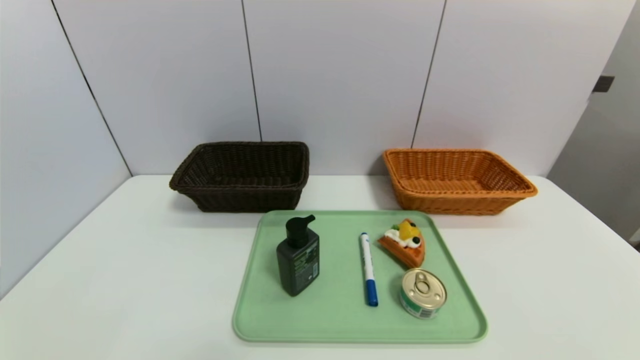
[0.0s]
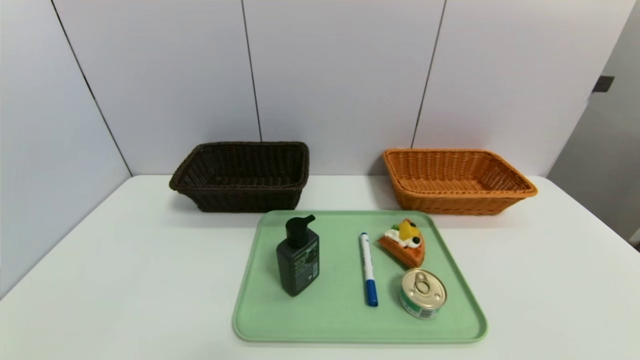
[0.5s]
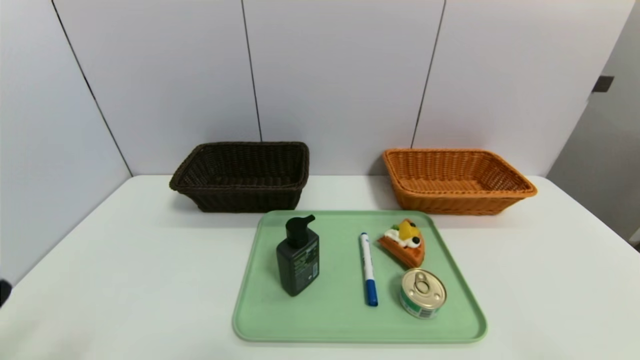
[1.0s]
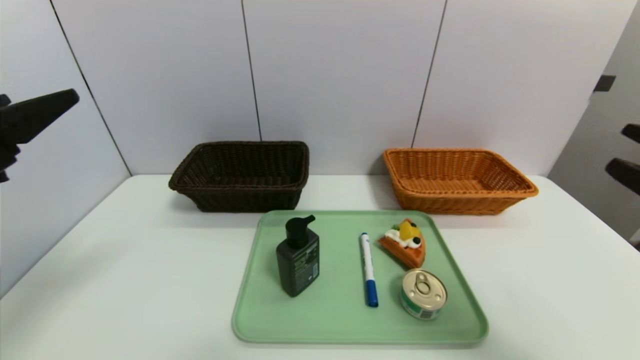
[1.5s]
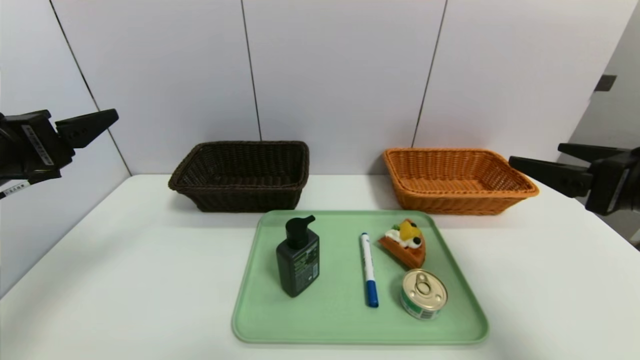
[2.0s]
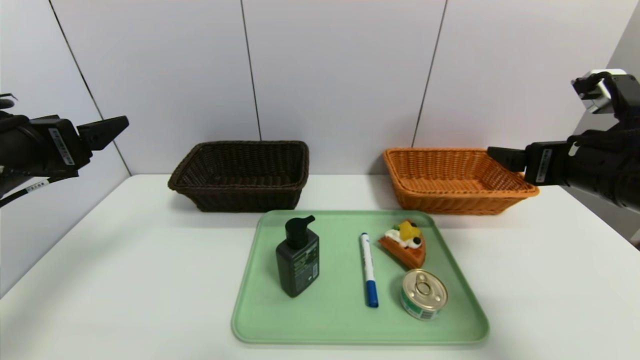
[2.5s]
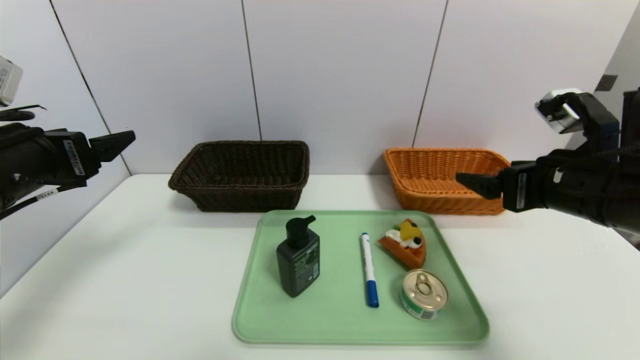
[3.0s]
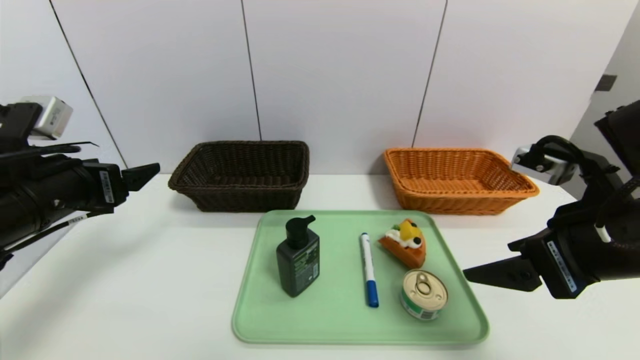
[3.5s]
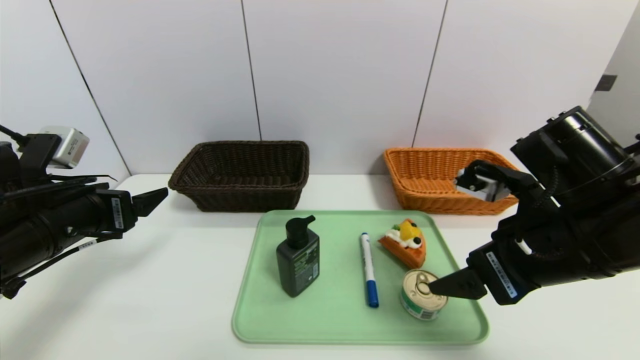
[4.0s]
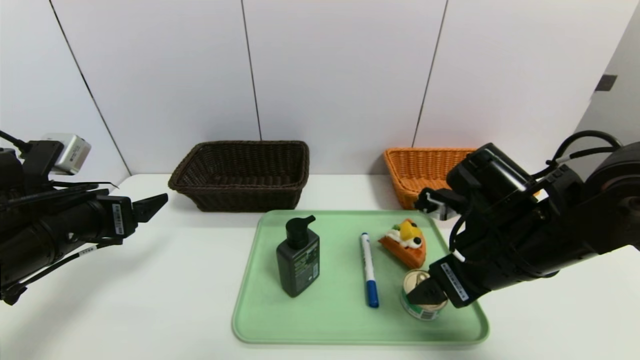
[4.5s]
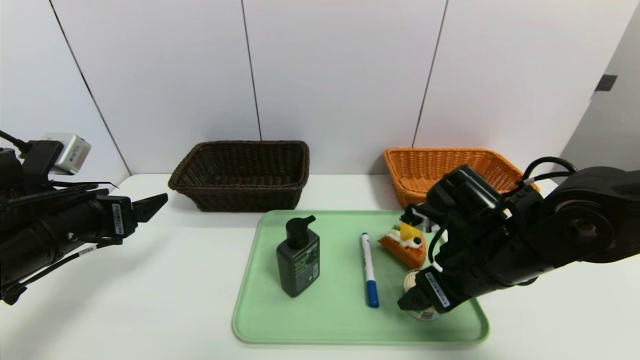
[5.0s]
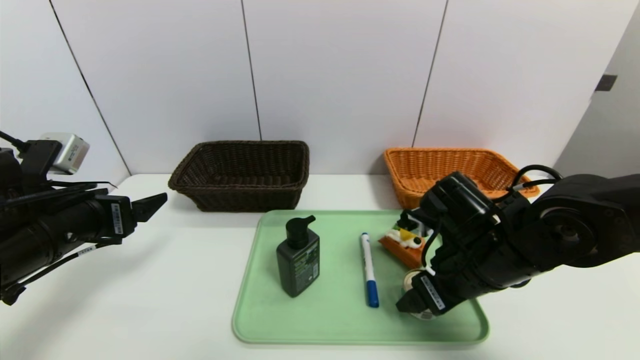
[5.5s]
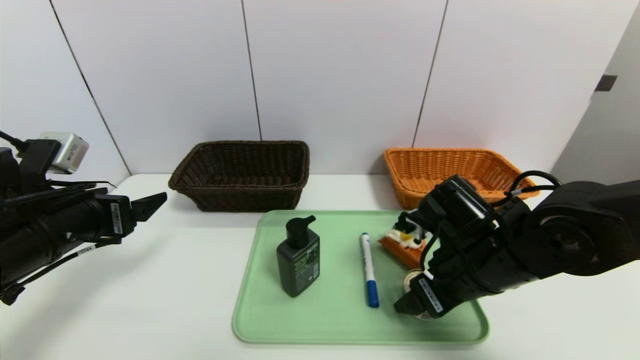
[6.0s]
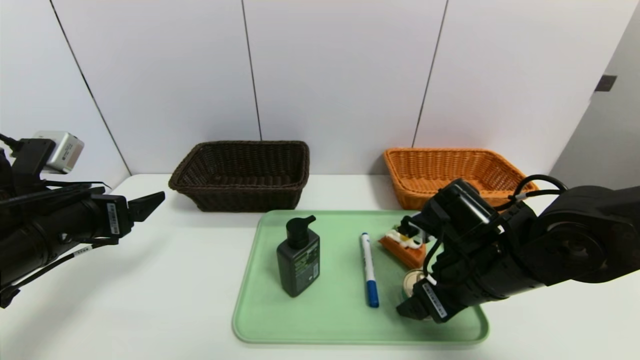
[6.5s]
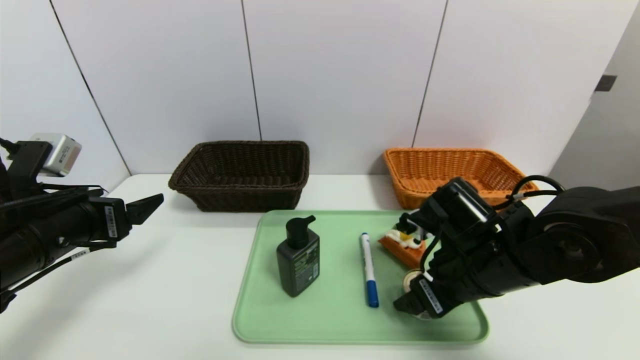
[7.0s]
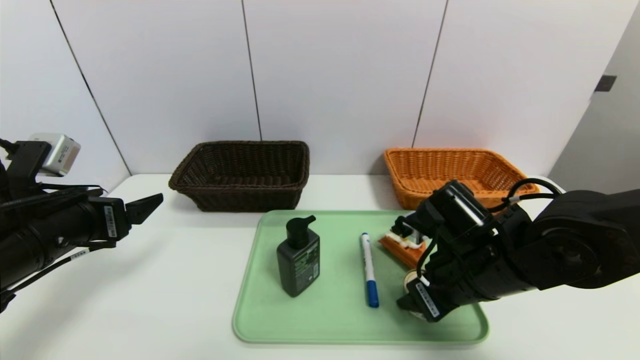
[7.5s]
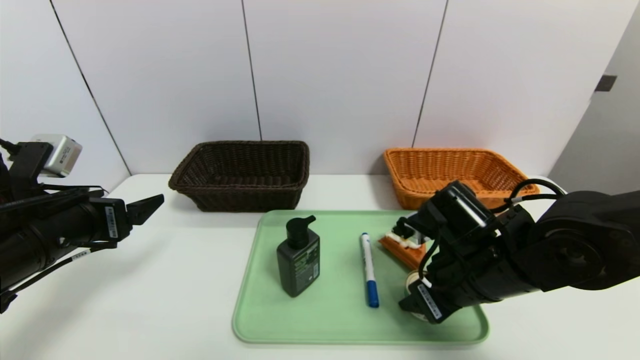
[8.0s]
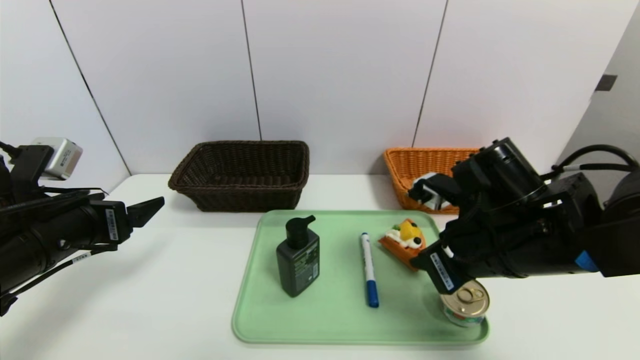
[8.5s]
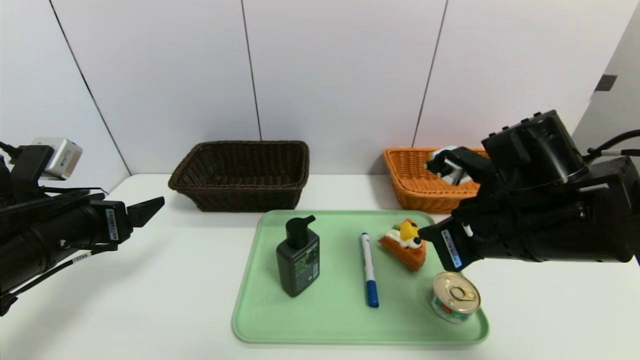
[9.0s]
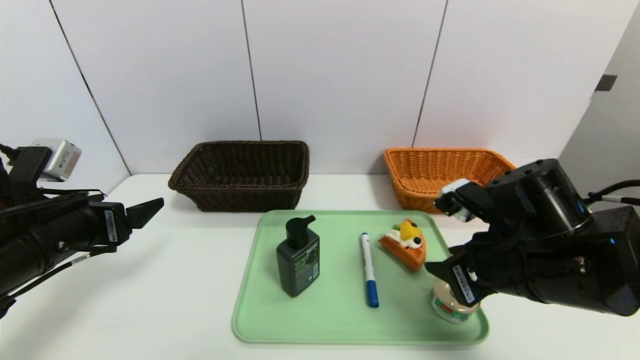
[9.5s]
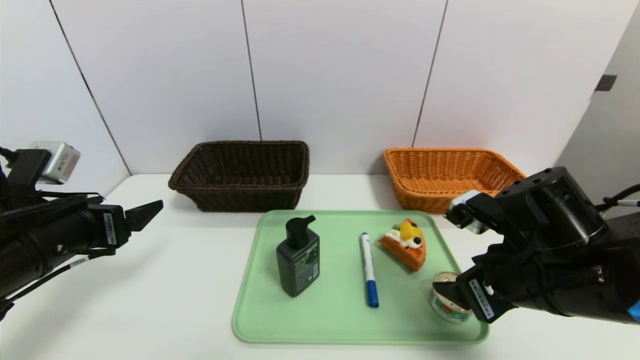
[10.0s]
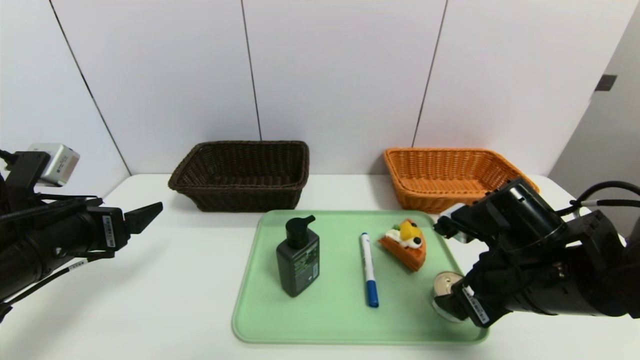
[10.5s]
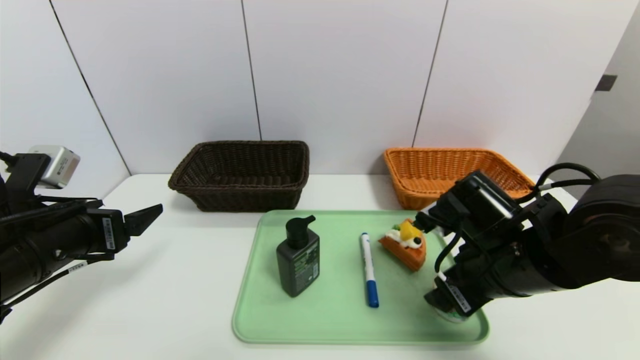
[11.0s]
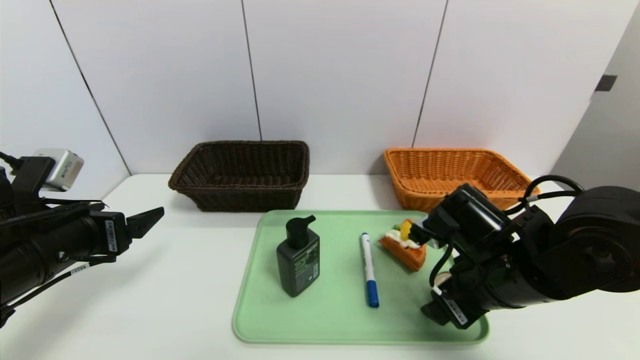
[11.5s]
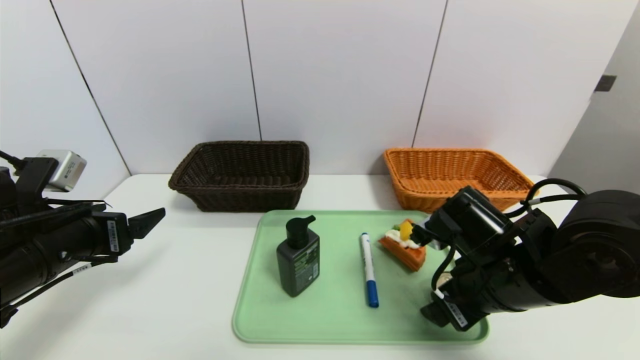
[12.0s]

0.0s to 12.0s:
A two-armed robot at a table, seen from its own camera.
Task of the whole recording: place the food in the right basket with the right gripper, and place the non food items in the left basket with the left gripper.
0.0s to 2.0s: The right gripper is displaced forward and upward by roughly 25 cm, while the left gripper goes about 30 cm upward and forward.
2.0s to 4.0s: The left gripper moves downward, roughly 10 cm; the right gripper travels to the left by roughly 10 cm.
4.0s to 6.0s: The right gripper moves downward, some 10 cm.
6.0s to 8.0s: The right gripper closes.
8.0s to 10.0s: The right gripper ends up roughly 5 cm from where it was, and closes, then reopens.
10.0s to 12.0s: The right gripper moves approximately 5 cm.

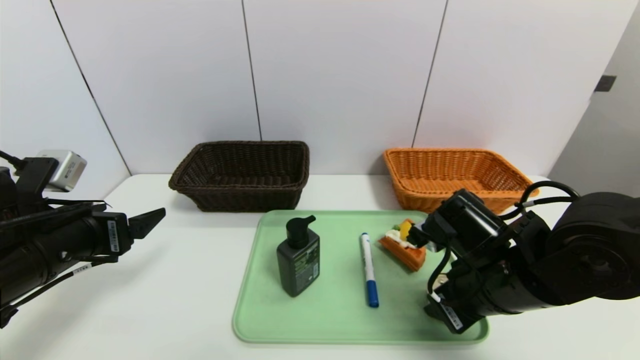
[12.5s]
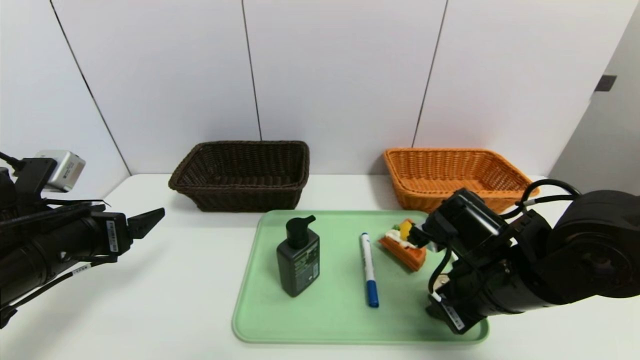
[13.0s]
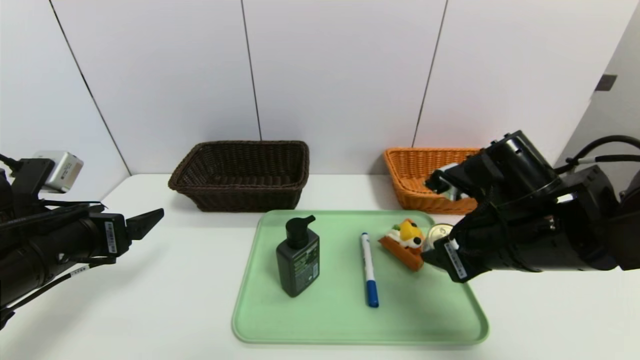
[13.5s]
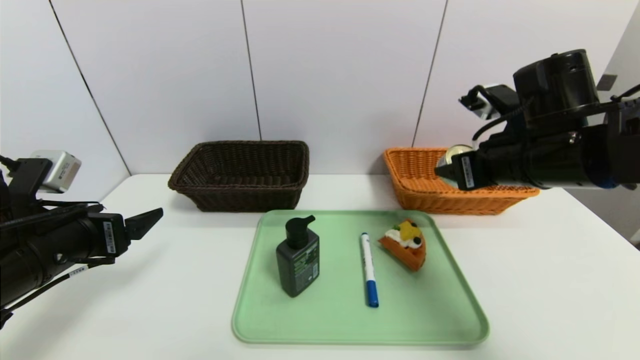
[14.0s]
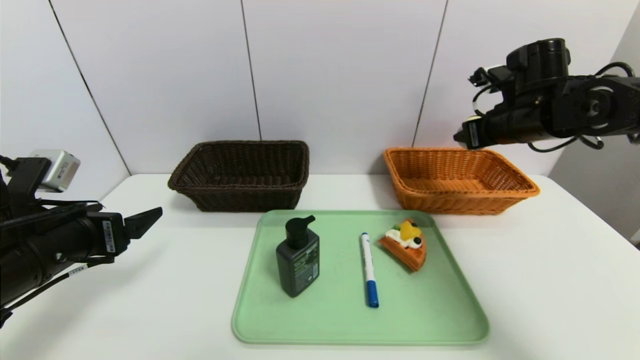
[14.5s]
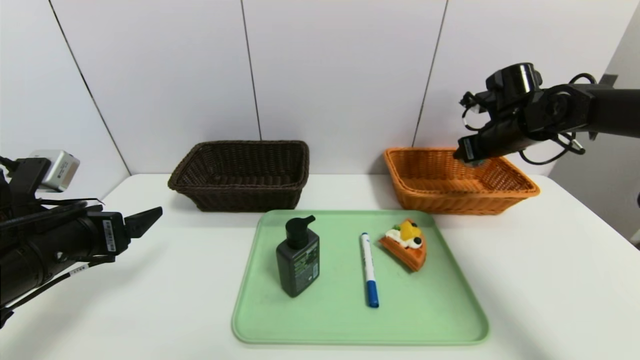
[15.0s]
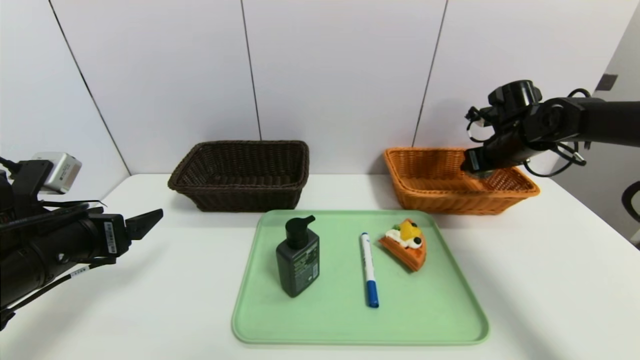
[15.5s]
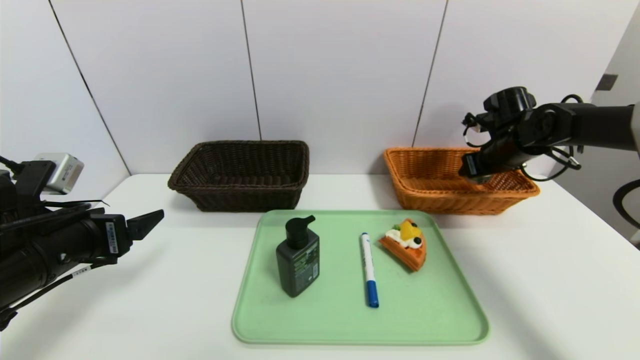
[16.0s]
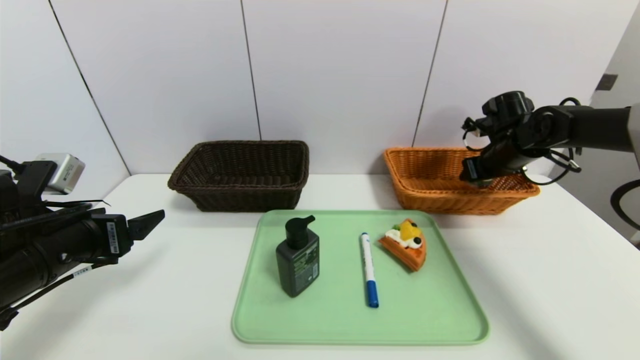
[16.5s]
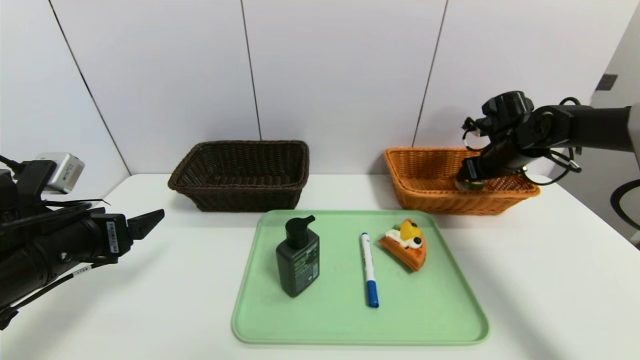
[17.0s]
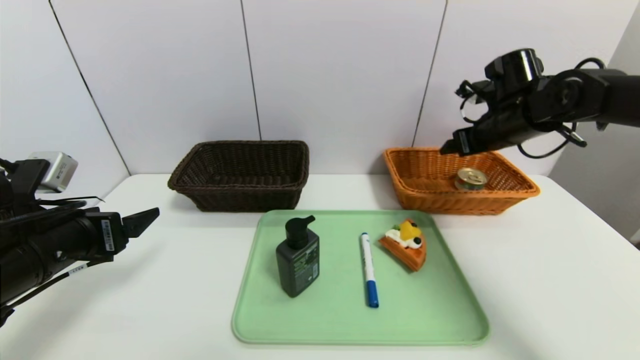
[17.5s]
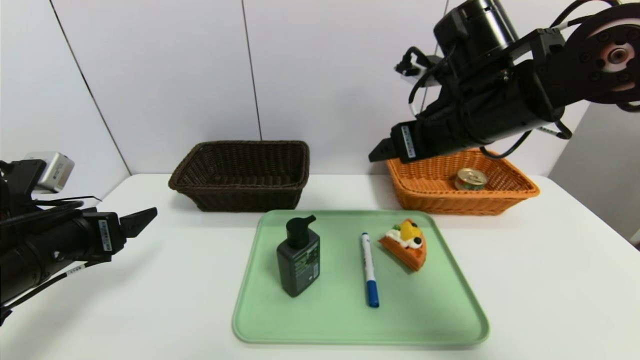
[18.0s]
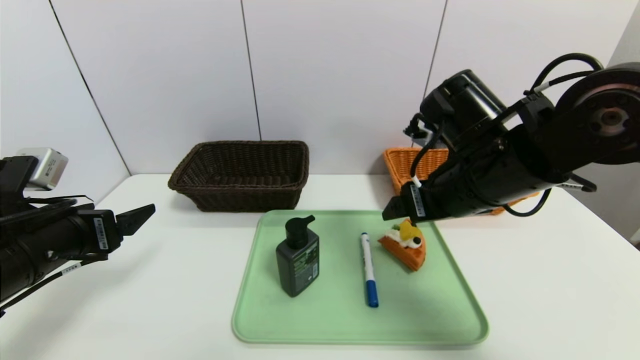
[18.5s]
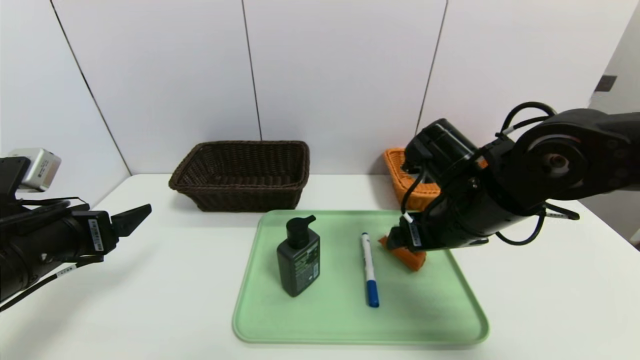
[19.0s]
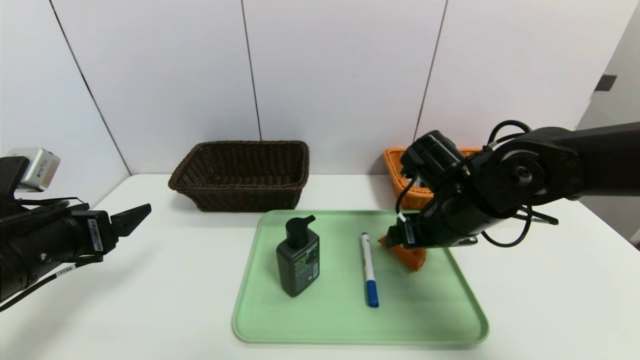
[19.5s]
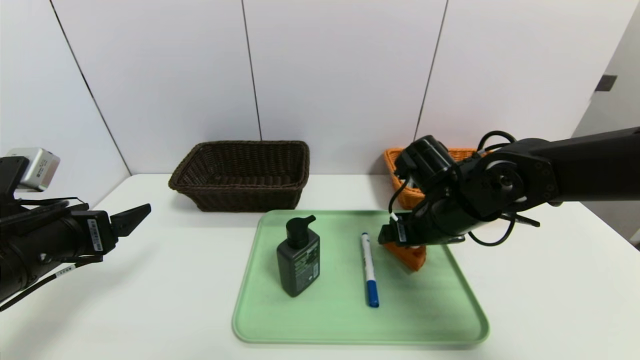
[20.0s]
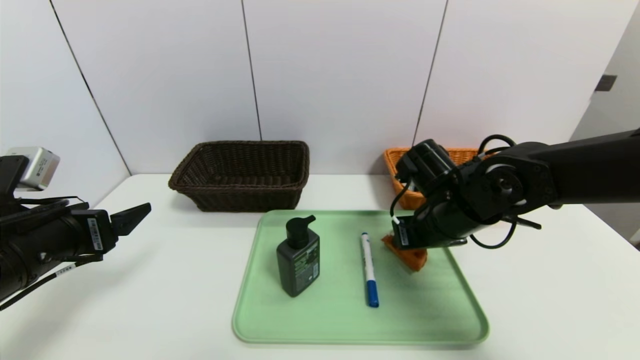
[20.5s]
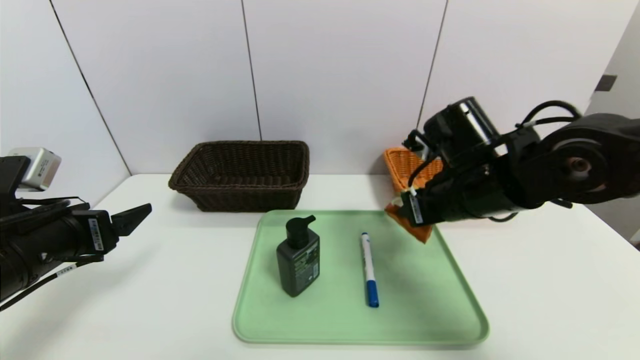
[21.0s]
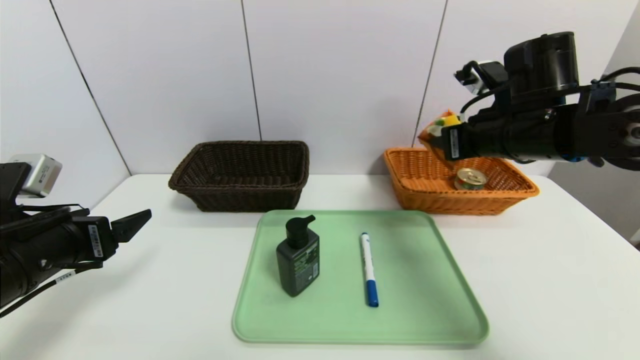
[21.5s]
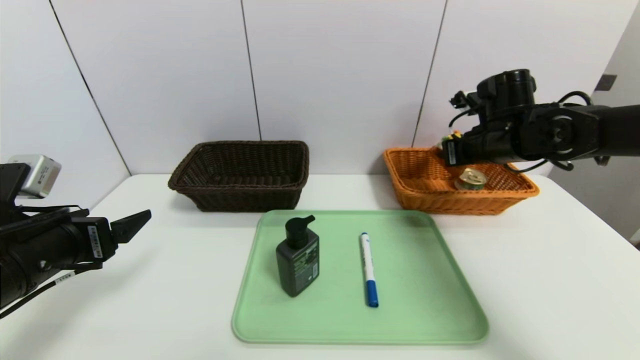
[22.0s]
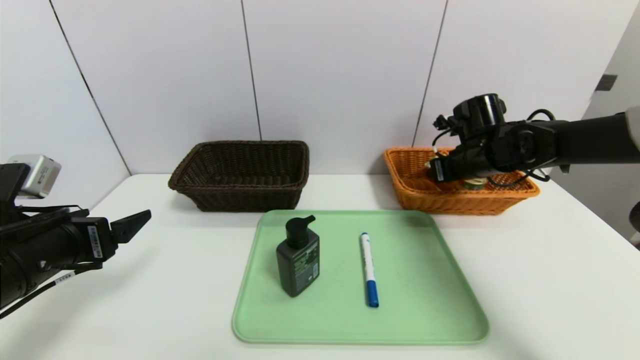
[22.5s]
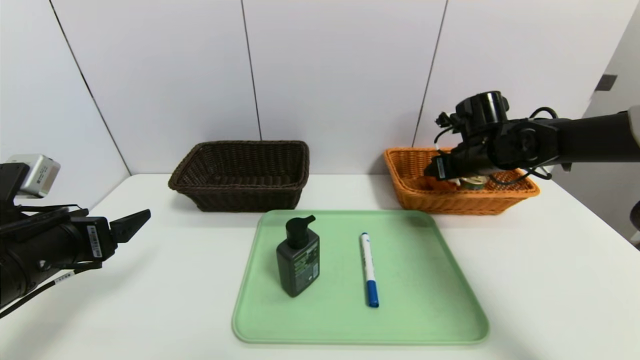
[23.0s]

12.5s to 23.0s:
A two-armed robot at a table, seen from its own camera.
Task of the whole recording: place the food in the right basket with the right gripper, and place the non food items in the left basket with the left gripper.
Step, 12.5s to 17.0s: Grasp the tin and put it in the right basket.
12.5s to 14.5s: The right gripper goes about 25 cm forward, upward and to the right.
14.5s to 16.5s: The right gripper heads downward and forward, covering approximately 10 cm.
16.5s to 19.0s: The right gripper moves backward and to the left, approximately 25 cm, and opens.
19.0s to 21.0s: The right gripper closes its fingers.
21.0s to 23.0s: The right gripper shifts about 15 cm forward and to the right, and opens.
